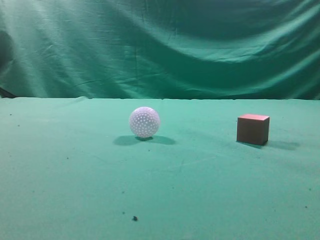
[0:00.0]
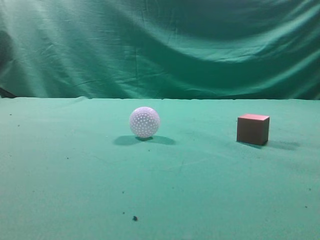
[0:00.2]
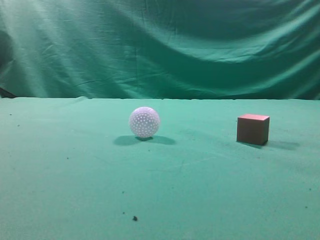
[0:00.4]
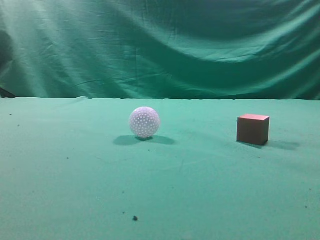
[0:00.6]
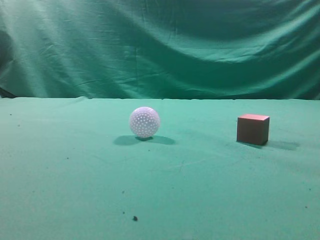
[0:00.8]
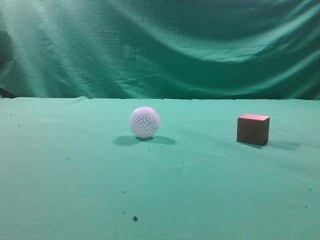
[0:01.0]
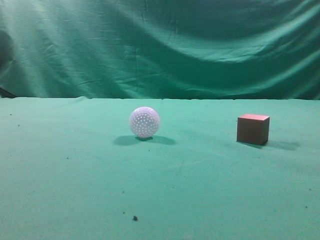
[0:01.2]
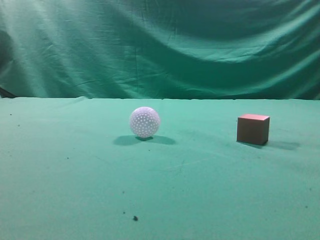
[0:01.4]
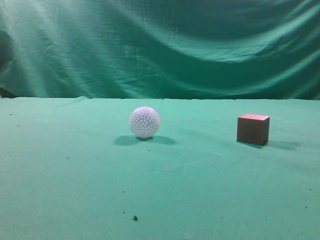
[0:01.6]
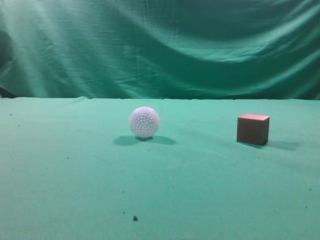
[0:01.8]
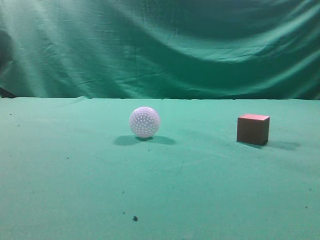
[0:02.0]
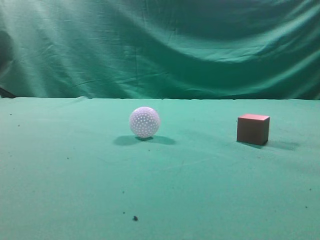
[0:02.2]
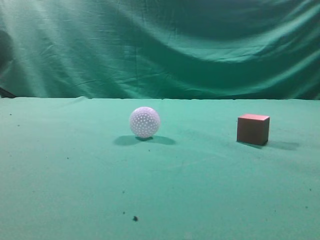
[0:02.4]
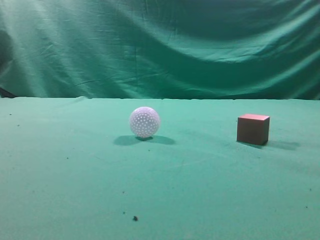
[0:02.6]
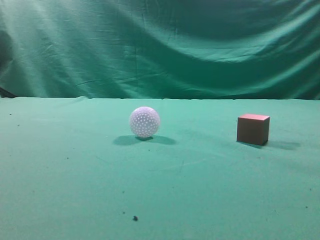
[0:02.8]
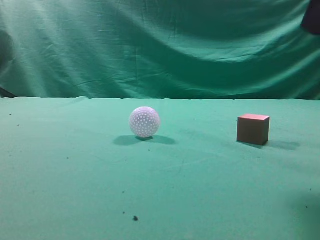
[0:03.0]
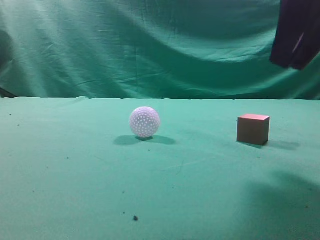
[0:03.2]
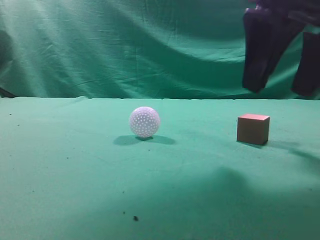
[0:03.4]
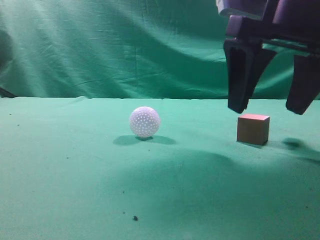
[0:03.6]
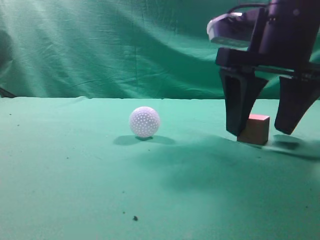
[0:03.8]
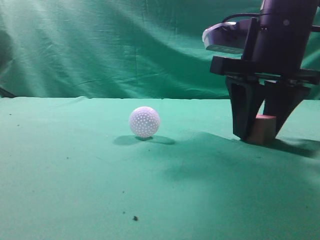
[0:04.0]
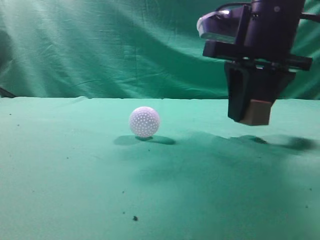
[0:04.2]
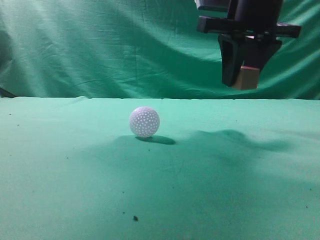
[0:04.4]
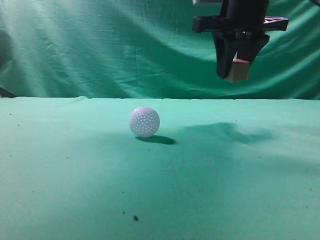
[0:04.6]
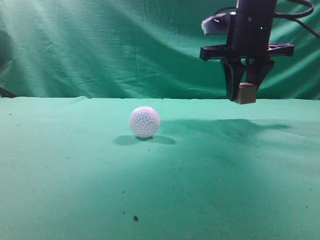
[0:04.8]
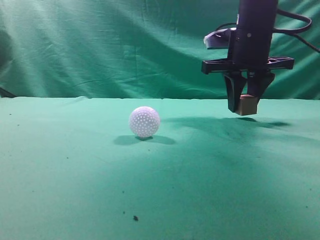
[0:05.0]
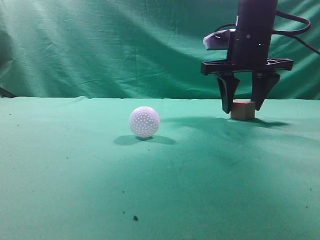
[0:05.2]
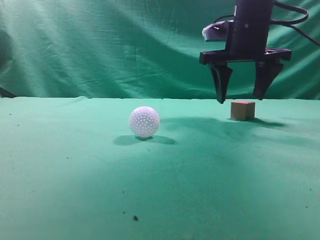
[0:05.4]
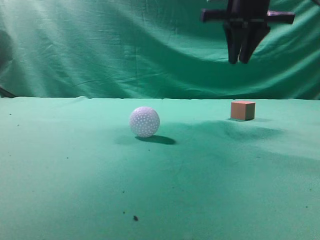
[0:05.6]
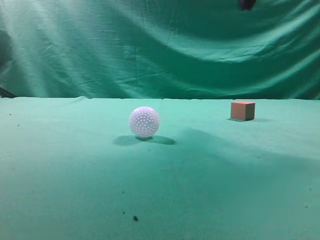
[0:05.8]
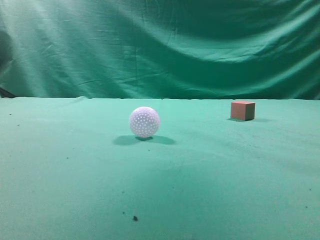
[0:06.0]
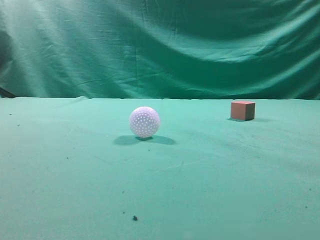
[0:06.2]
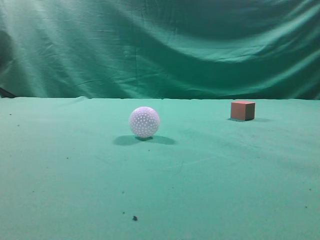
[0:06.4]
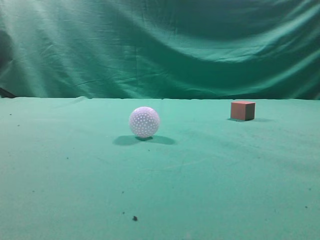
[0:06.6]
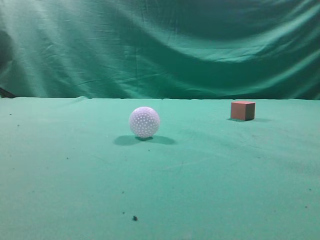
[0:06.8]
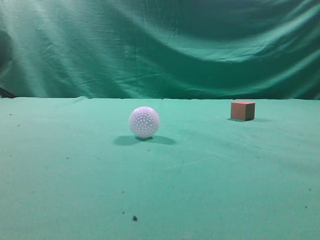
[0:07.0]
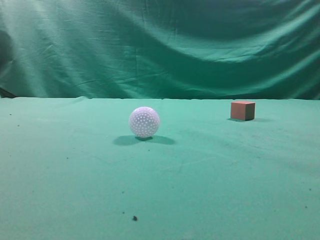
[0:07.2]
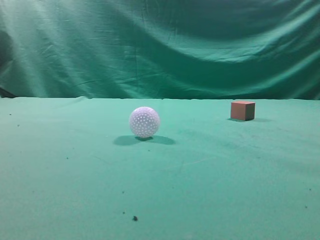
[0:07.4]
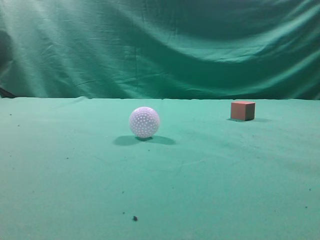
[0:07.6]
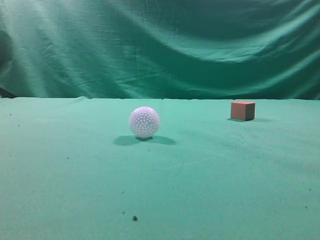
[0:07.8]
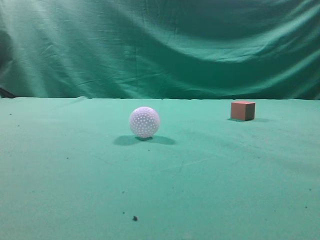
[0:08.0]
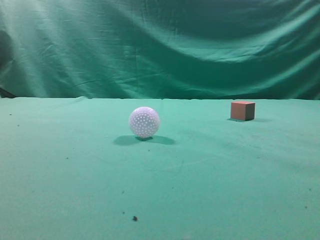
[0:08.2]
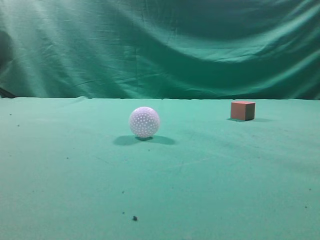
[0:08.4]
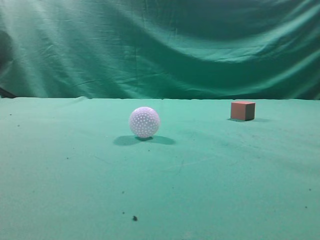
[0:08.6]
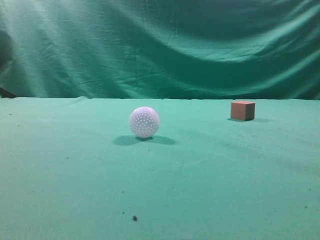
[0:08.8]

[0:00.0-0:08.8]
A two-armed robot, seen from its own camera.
Task of the whole recording: pick up the cube block and place it in another position on the table.
Step, 0:00.0 to 0:04.2: Pick up the small cube.
Step, 0:04.4 to 0:05.2: Place the small cube on the ahead of the table.
0:01.4 to 0:03.0: The right gripper moves forward and to the left, approximately 20 cm.
0:03.0 to 0:04.4: The right gripper goes roughly 15 cm forward and to the left, and opens, then closes once more.
0:04.4 to 0:05.8: The right gripper heads upward, covering about 15 cm, and opens, then closes once more.
0:05.8 to 0:07.4: The right gripper is displaced backward by some 25 cm.
